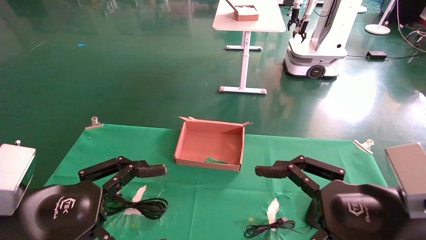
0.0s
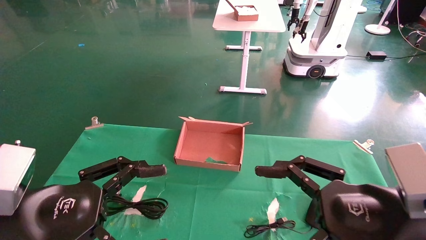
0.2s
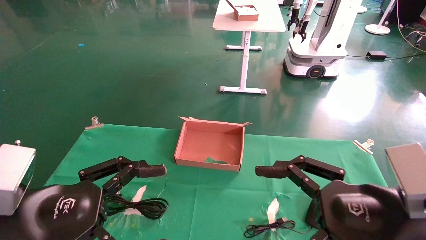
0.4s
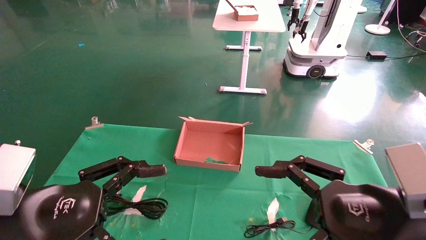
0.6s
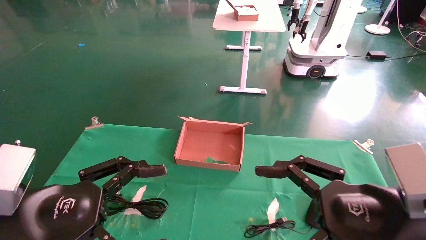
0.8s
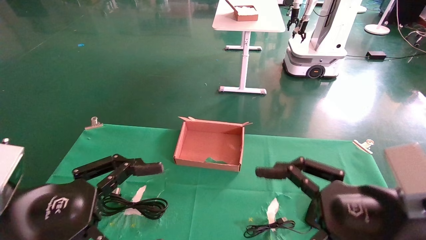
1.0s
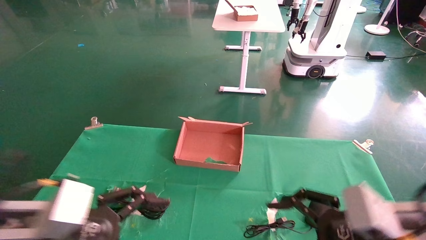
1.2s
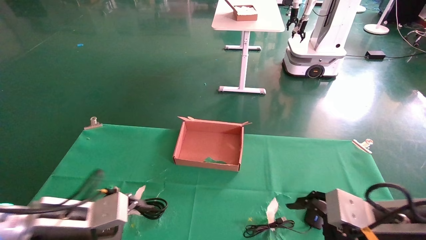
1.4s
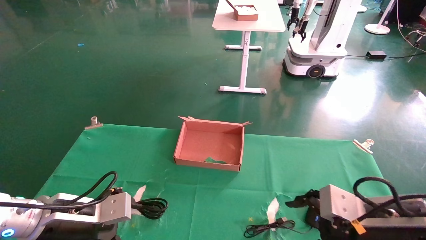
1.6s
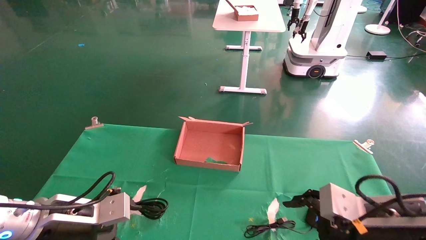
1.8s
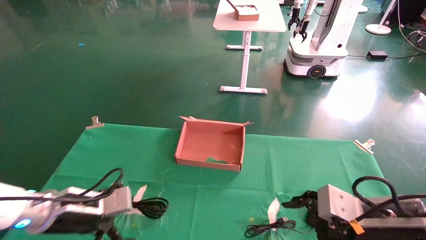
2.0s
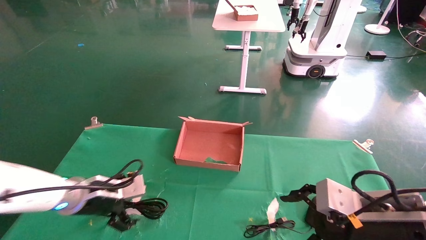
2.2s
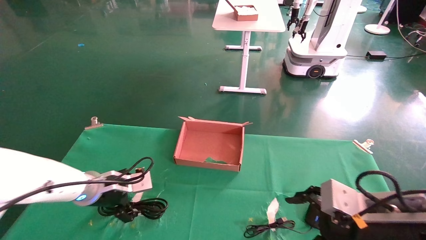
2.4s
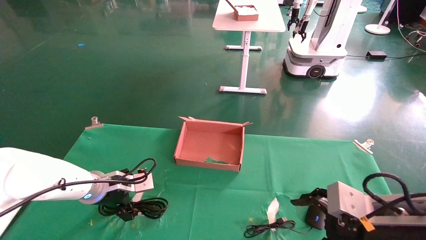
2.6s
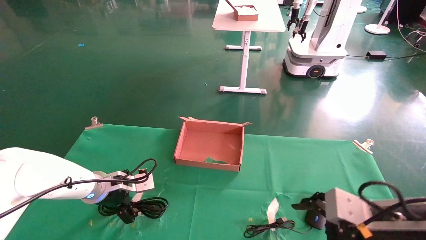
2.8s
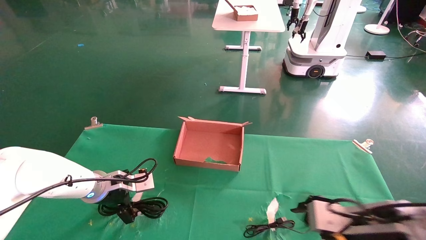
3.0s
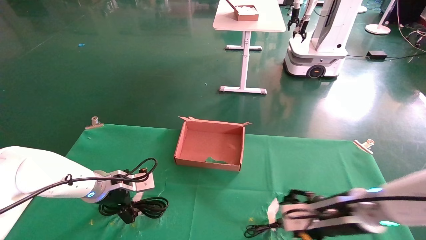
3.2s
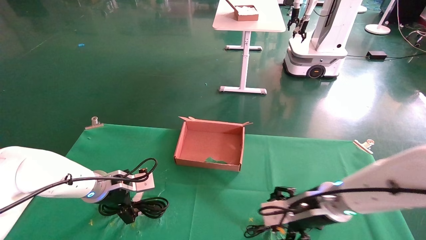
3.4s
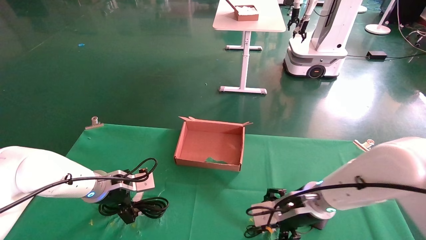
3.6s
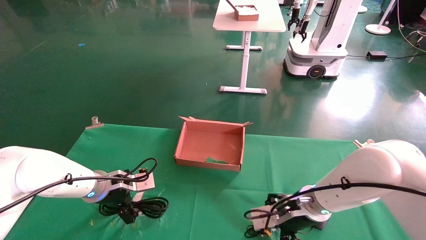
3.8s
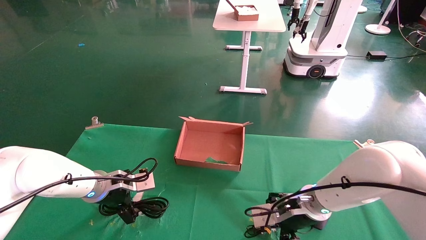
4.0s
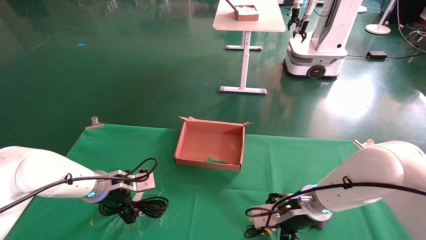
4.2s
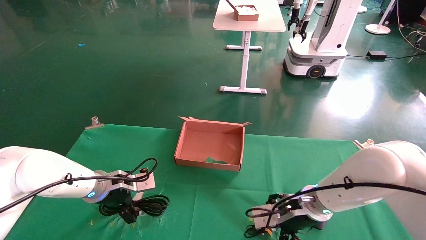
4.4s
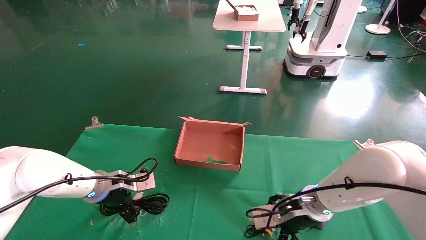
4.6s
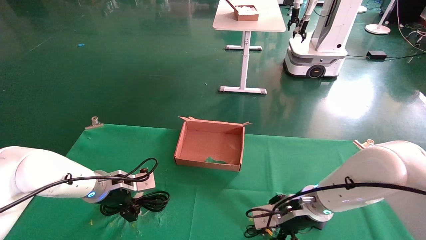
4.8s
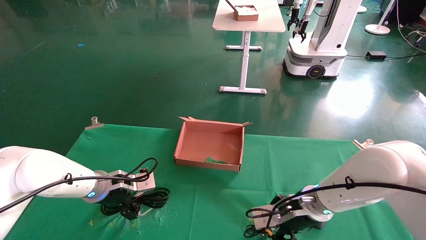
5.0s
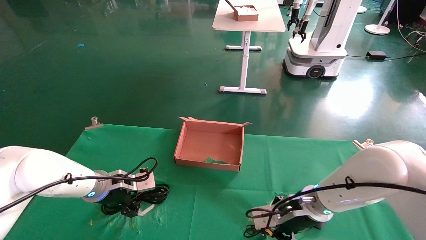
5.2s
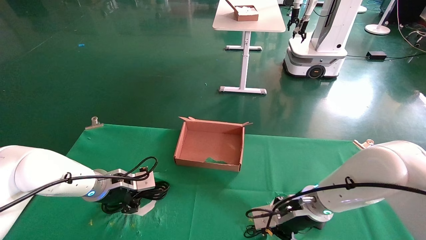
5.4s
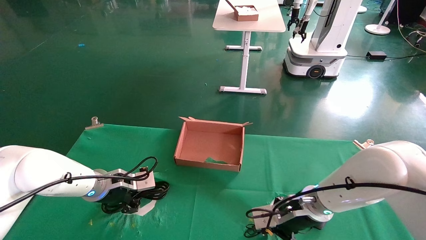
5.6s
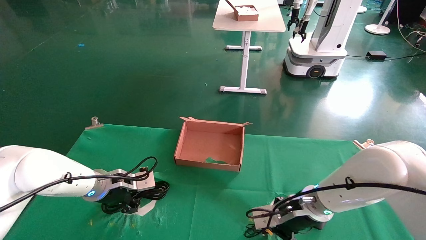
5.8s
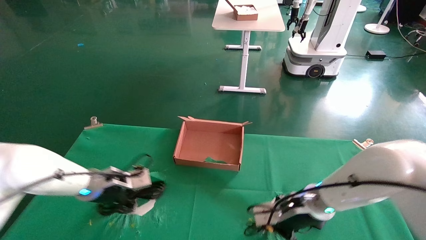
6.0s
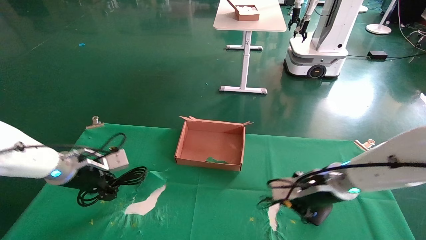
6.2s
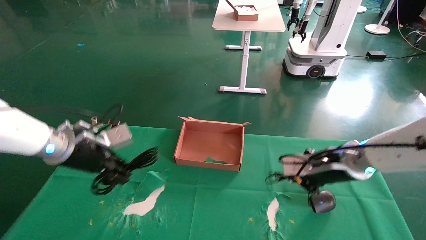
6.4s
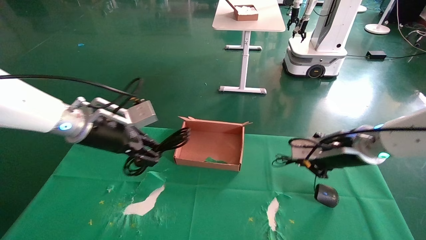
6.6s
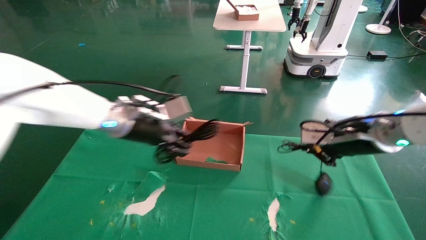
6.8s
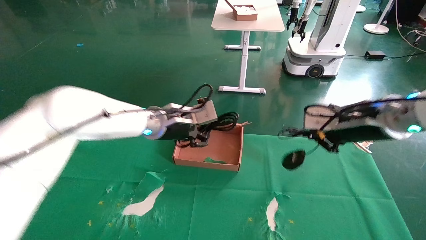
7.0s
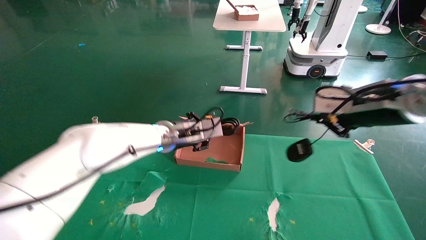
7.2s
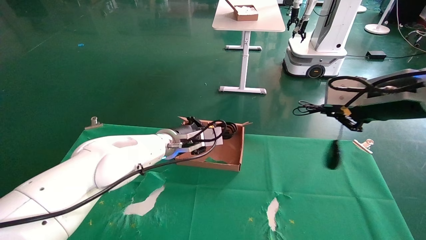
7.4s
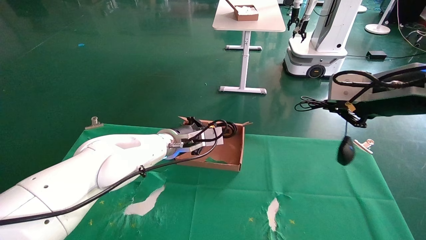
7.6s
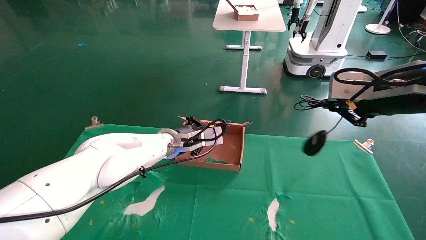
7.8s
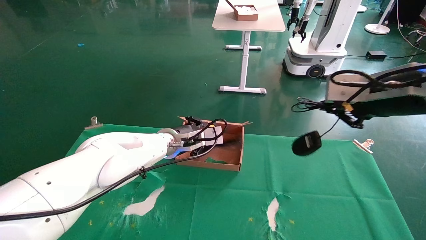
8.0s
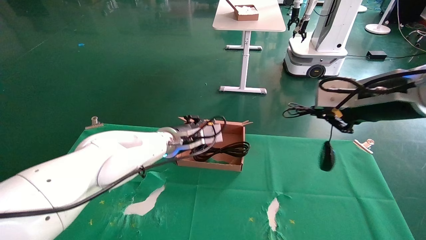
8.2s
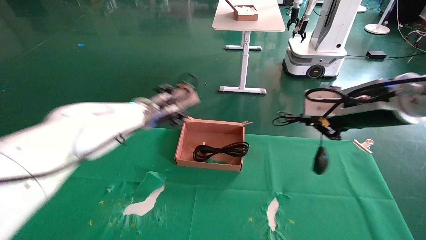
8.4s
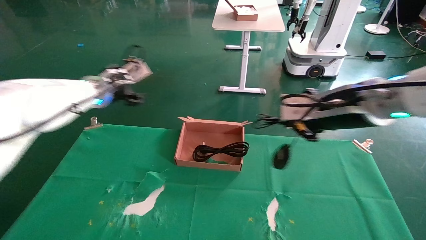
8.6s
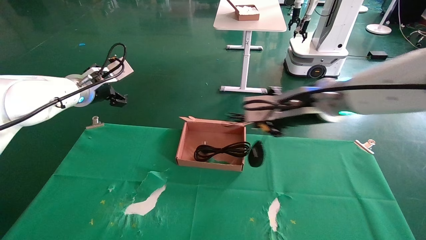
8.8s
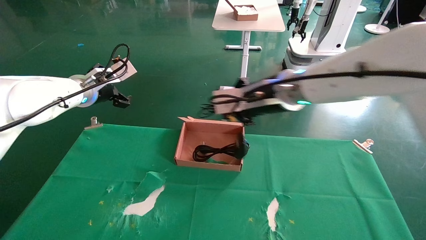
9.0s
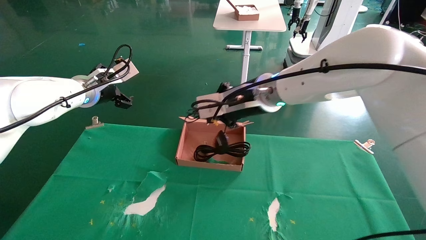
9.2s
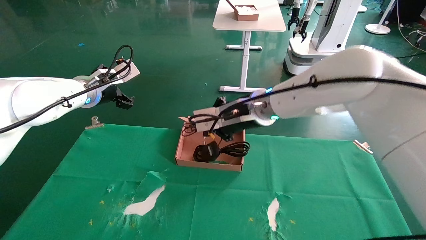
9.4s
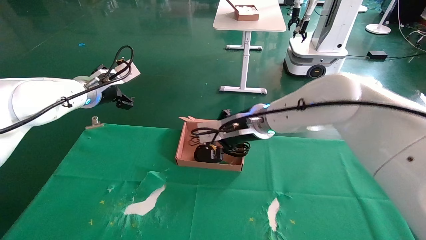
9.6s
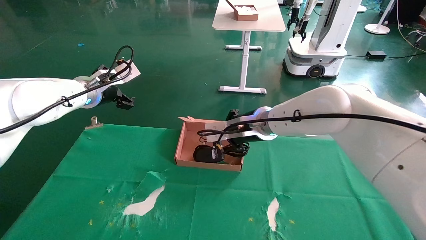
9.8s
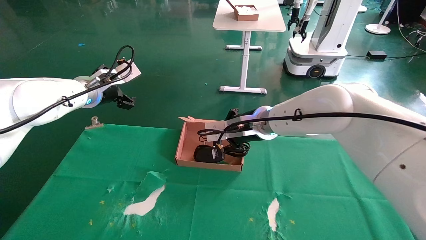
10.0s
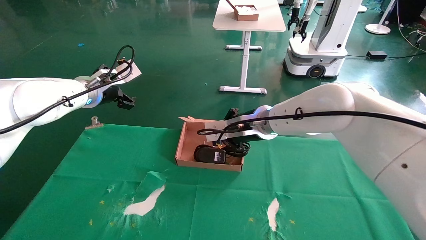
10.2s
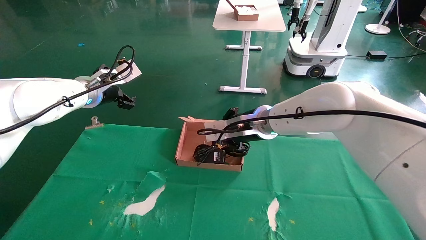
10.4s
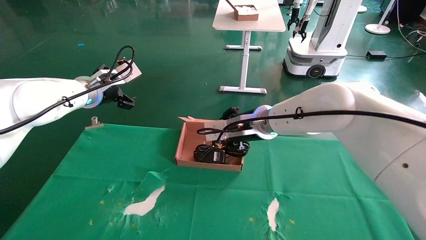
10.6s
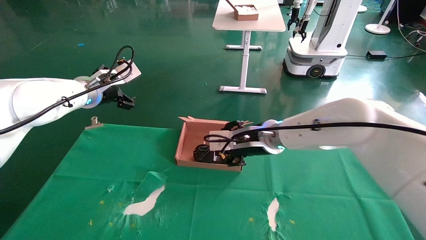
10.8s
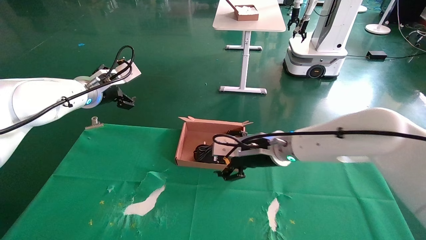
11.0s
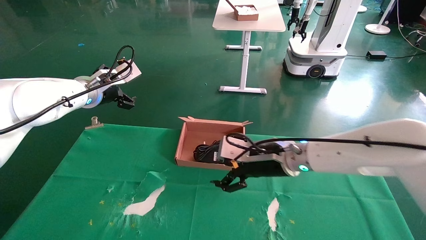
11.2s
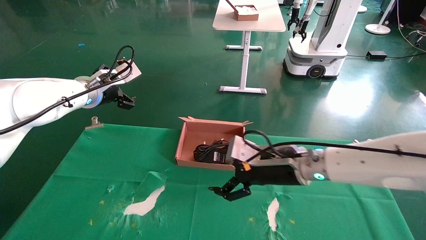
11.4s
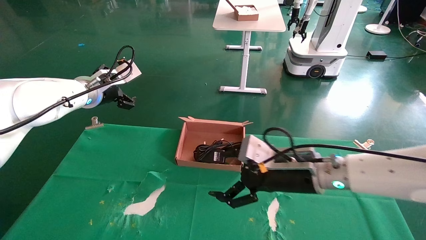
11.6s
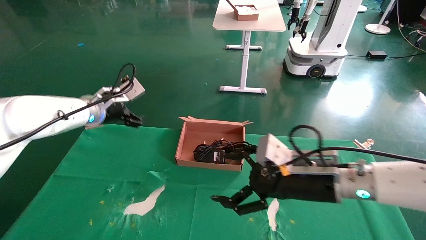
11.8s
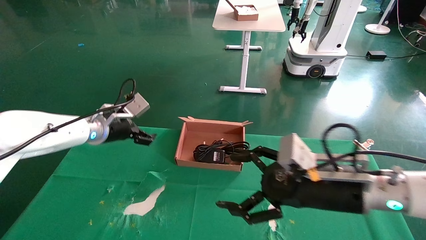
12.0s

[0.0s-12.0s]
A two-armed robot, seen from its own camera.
Step, 1.4s to 6.6s: Grab and lift both the mouse and power cord from the accessory packaging area at the same time.
Step, 6.8s to 10.4s: Place the mouse and power cord into the box.
0.0s to 1.6s: The right gripper heads forward and downward, covering approximately 10 cm. Meanwhile the left gripper is displaced forward and downward by some 10 cm.
1.6s to 3.0s: The right gripper moves about 5 cm. The left gripper travels forward by some 15 cm.
3.0s to 4.4s: The right gripper shifts about 15 cm forward and to the left.
4.4s to 6.0s: The right gripper closes up, while the left gripper closes.
6.0s to 7.6s: The left gripper shifts approximately 20 cm to the right; the right gripper goes approximately 25 cm upward, to the right and backward.
7.6s to 9.0s: The left gripper is displaced to the left and upward by about 20 cm, and opens up, while the right gripper travels to the left and forward by approximately 20 cm.
9.0s to 10.4s: The right gripper is displaced downward and forward by roughly 10 cm.
10.4s to 12.0s: The left gripper is displaced downward by some 10 cm; the right gripper heads backward and to the right, covering about 20 cm, and opens.

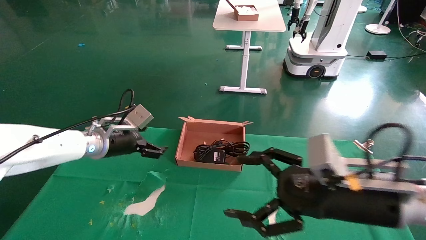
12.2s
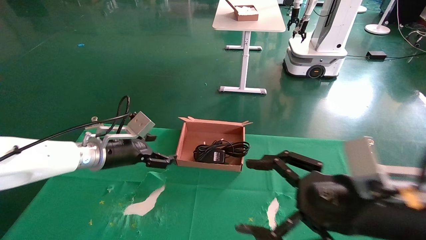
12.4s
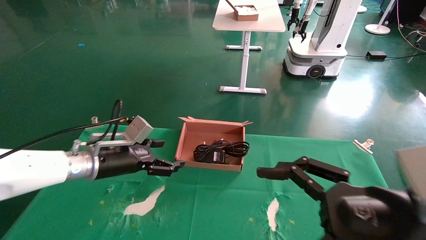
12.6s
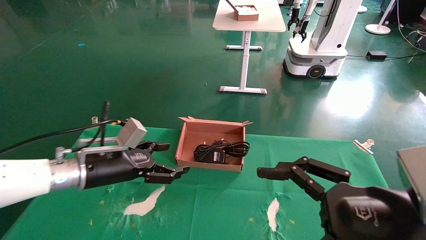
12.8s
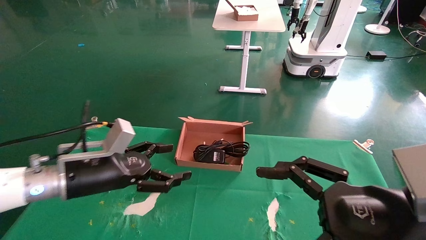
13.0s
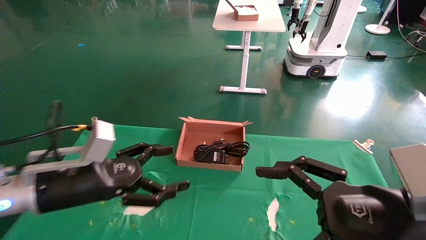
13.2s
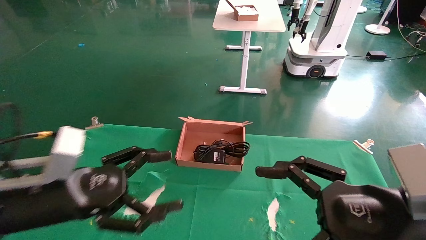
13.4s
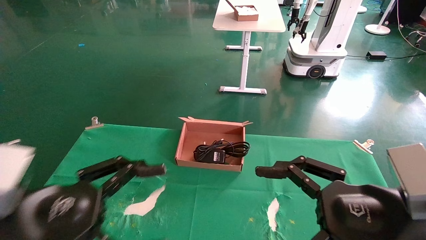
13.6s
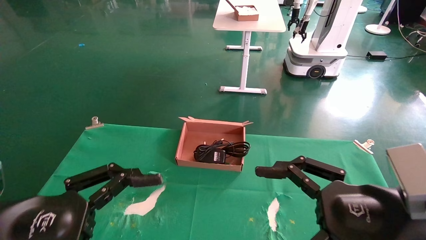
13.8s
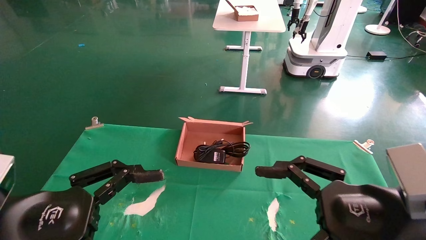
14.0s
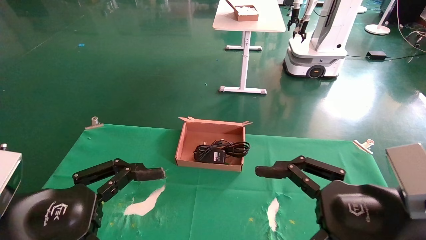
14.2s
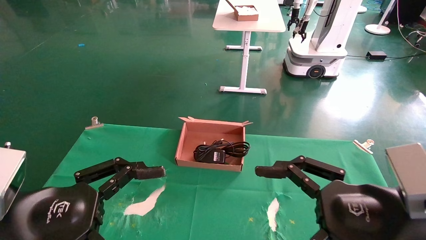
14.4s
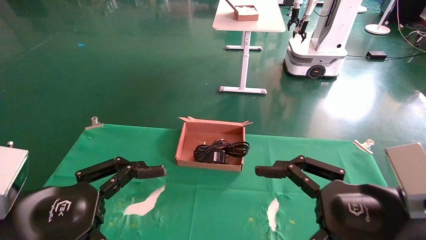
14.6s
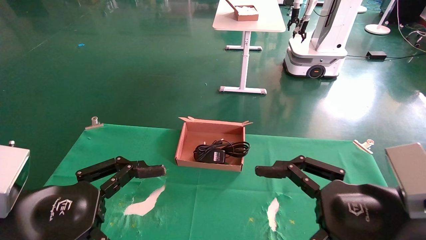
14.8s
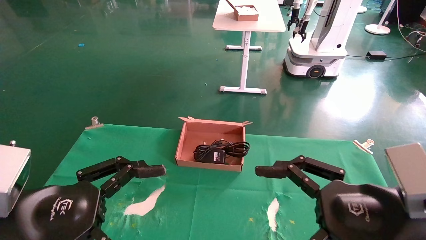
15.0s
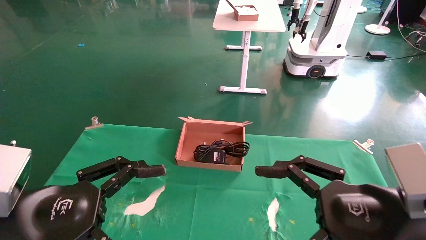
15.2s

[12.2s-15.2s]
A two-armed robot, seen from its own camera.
12.2s to 13.8s: The right gripper shifts about 5 cm backward. Meanwhile the left gripper moves backward, approximately 30 cm.
13.8s to 15.2s: Neither gripper changes place.
